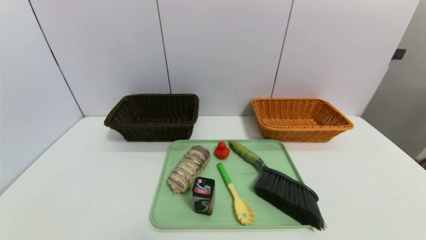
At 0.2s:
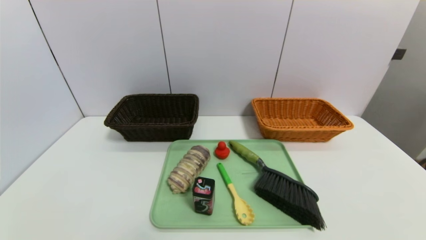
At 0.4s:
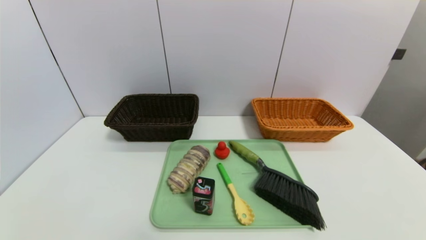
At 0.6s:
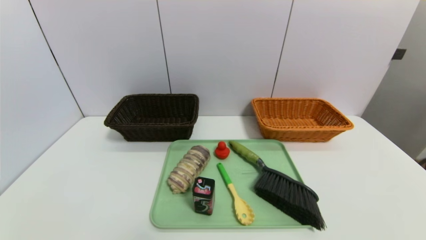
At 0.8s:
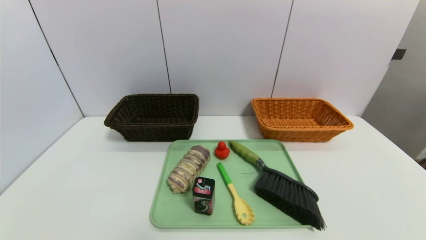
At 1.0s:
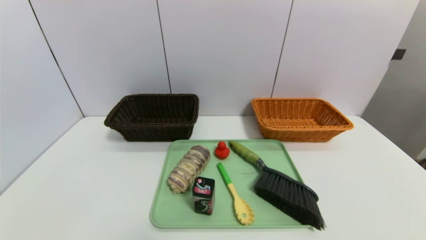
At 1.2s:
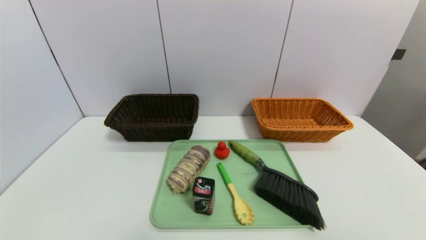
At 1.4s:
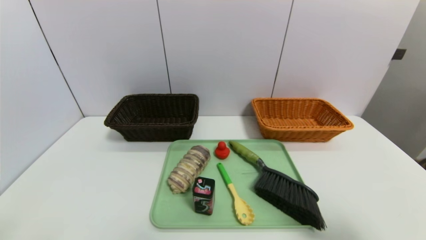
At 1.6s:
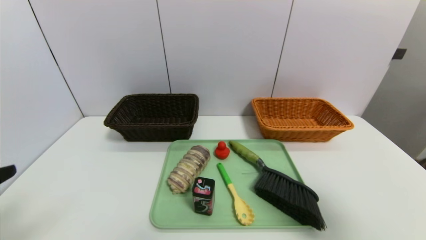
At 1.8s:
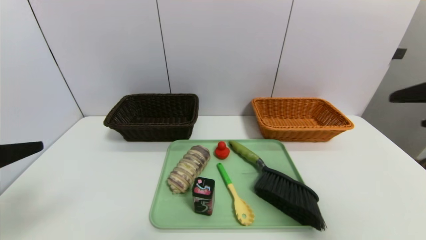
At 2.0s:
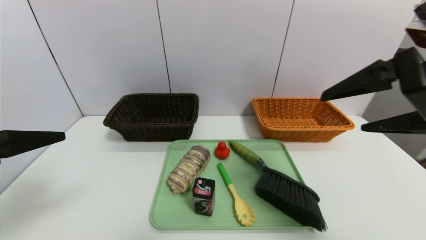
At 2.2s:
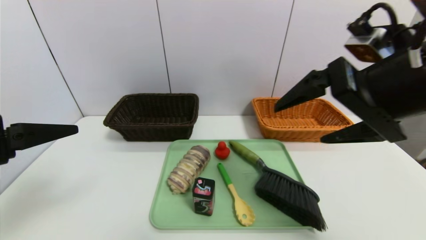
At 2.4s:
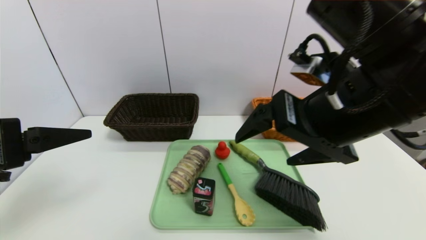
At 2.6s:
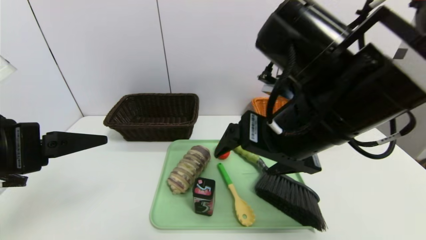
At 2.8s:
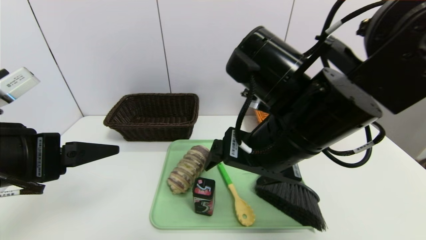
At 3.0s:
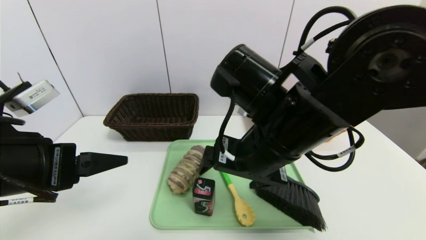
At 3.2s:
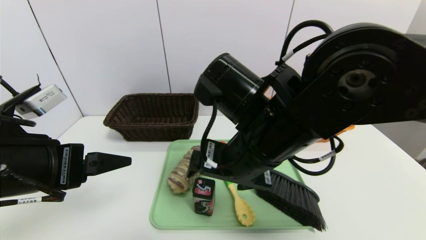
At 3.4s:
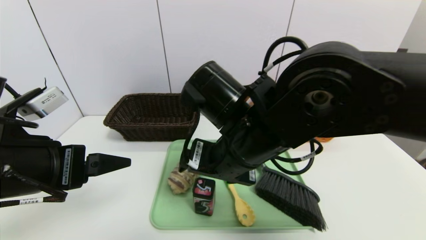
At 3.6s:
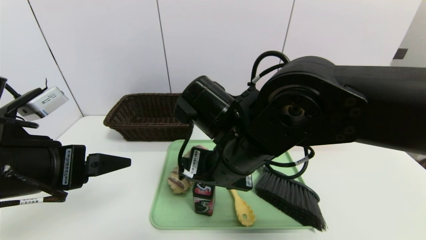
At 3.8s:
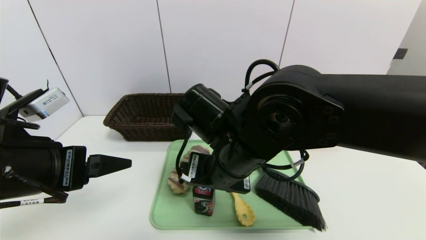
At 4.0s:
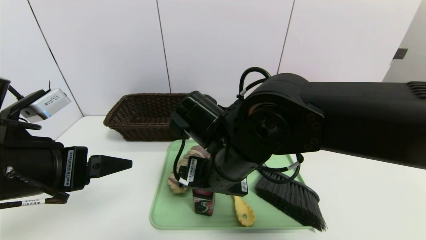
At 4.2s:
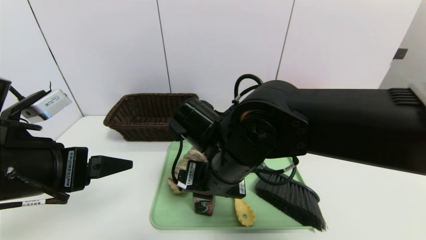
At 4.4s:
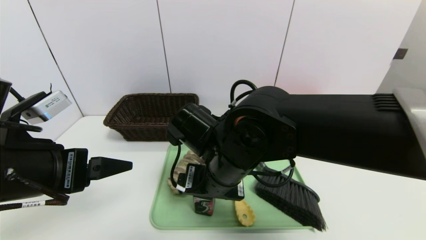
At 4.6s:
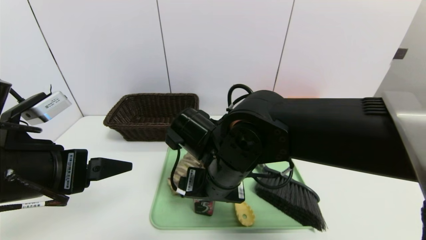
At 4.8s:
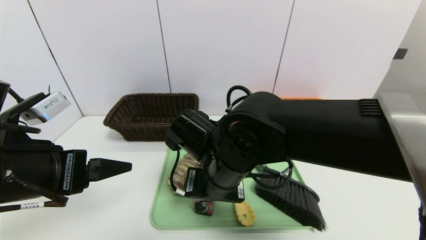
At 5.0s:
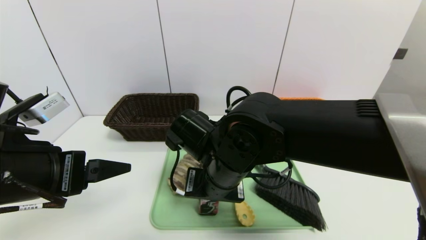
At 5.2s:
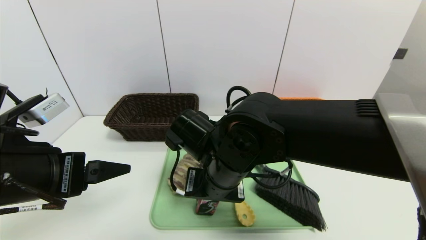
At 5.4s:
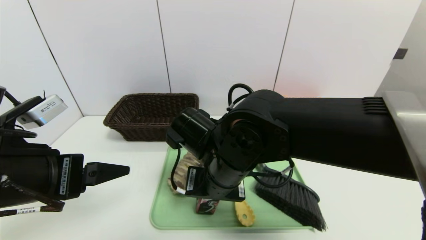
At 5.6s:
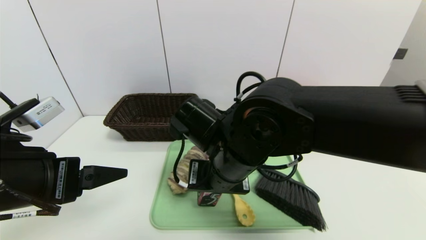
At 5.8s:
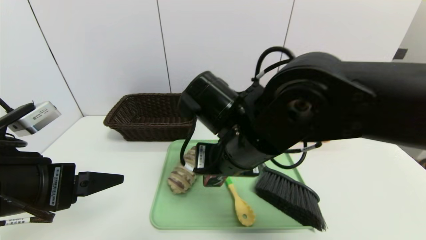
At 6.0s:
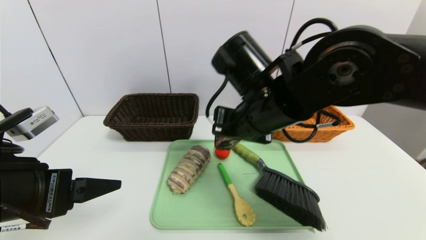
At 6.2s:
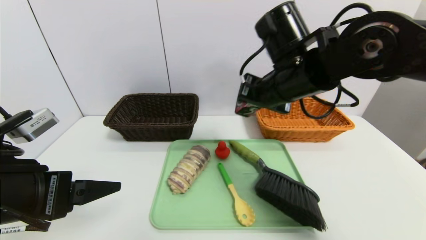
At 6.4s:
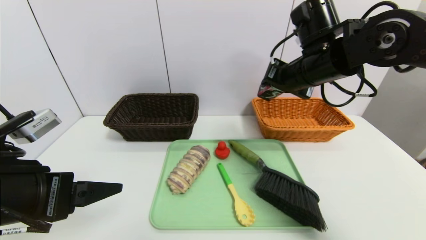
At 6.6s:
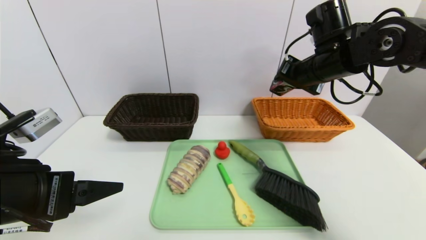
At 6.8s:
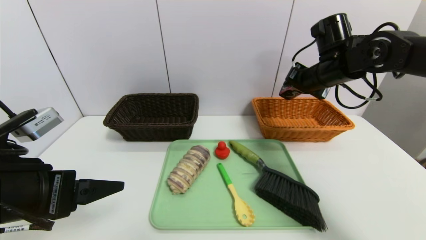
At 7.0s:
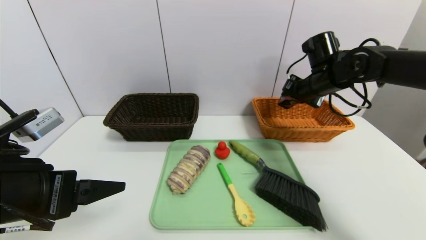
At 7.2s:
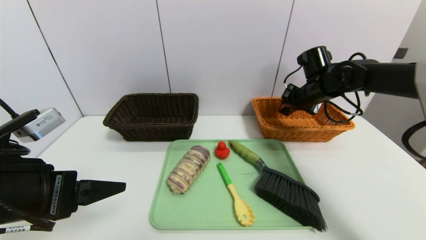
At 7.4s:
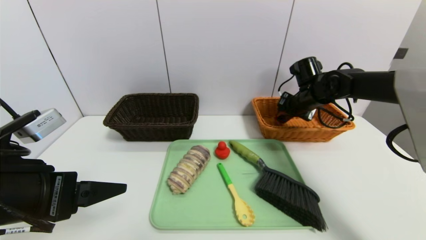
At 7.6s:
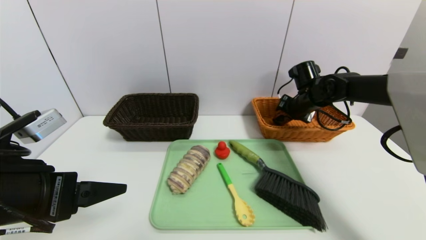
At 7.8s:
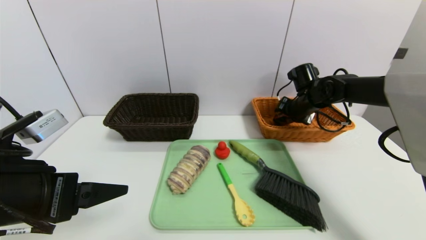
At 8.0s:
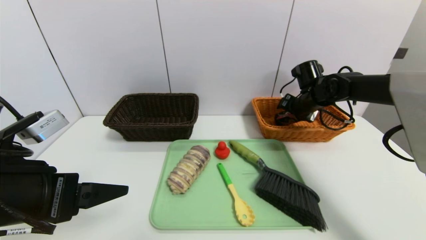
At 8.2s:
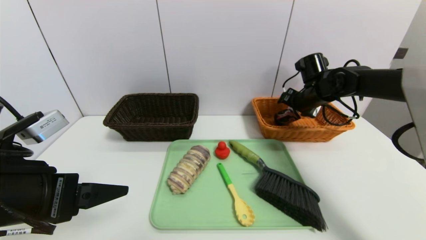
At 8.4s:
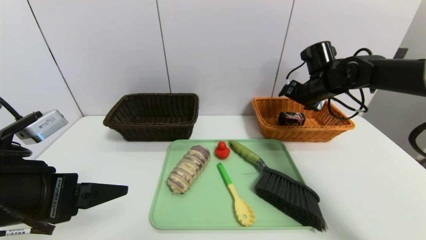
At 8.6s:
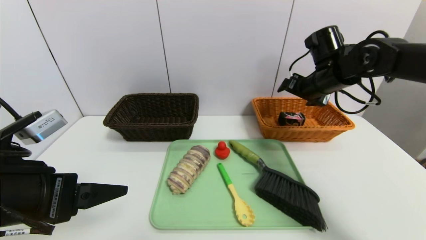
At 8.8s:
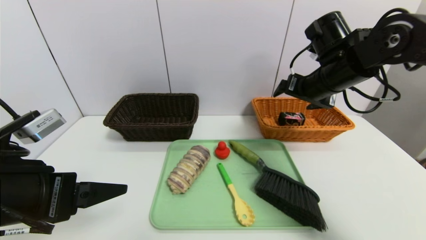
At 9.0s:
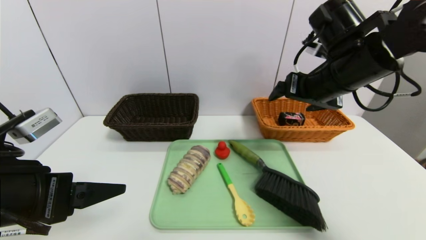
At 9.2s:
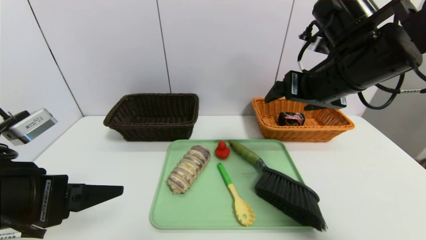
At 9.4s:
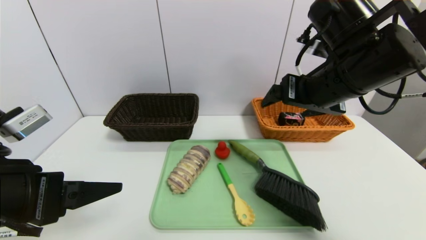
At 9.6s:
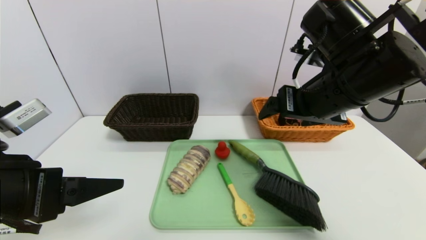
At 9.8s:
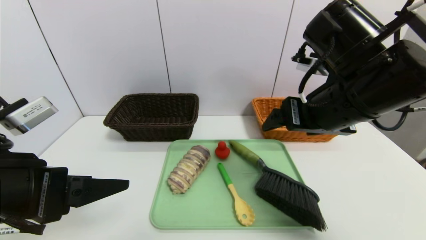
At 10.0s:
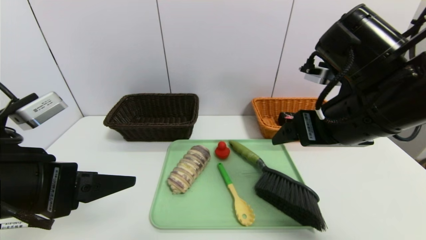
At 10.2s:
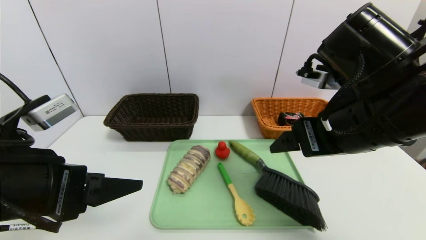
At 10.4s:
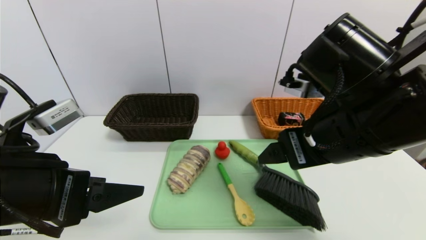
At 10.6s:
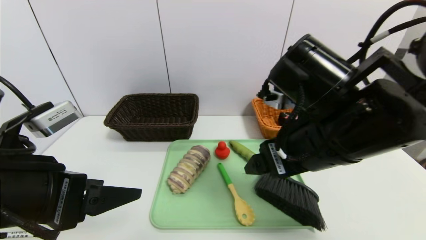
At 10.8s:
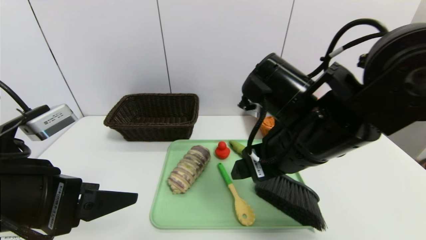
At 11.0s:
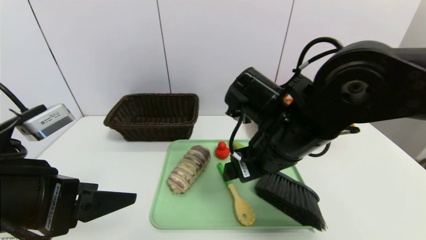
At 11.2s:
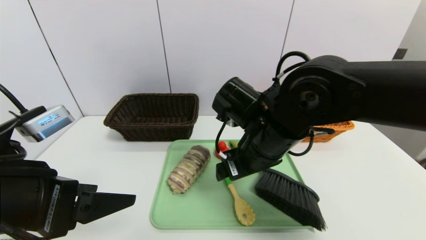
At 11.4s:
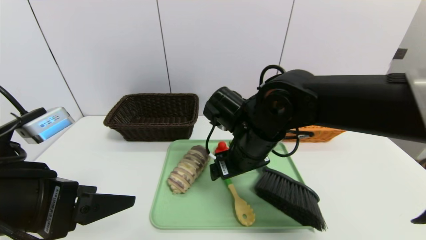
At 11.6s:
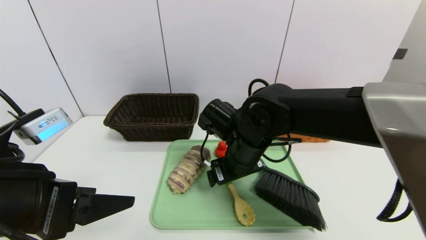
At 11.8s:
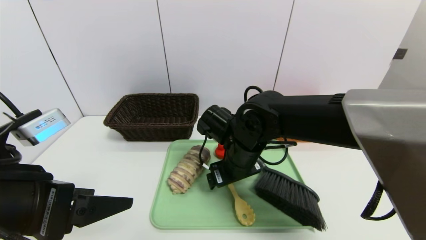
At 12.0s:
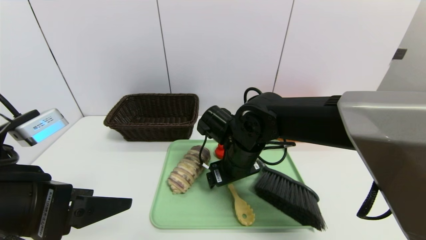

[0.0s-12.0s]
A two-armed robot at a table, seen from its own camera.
Task of the whole recording: place the food in the right basket with the right gripper, and place the non food items in the left basket with the left gripper.
Step, 0.0s to 8.4s: Grasp the square chewing gum and put it in the right basket.
0.0s to 1.6s: Both grippers travel together upward, approximately 25 cm.
1.6s to 3.0s: The right gripper travels to the left and forward by roughly 30 cm. The left gripper travels forward and to the right by approximately 10 cm.
3.0s to 4.4s: The right gripper travels downward and to the left by some 10 cm.
4.4s to 6.0s: The right gripper travels upward and to the right by about 10 cm, and closes.
6.0s to 7.6s: The right gripper goes approximately 30 cm forward, to the right and downward.
7.6s to 9.0s: The right gripper moves backward and upward, some 20 cm.
9.0s to 10.4s: The right gripper shifts about 10 cm backward.
10.4s to 12.0s: The right gripper shifts approximately 20 cm downward, to the left and forward.

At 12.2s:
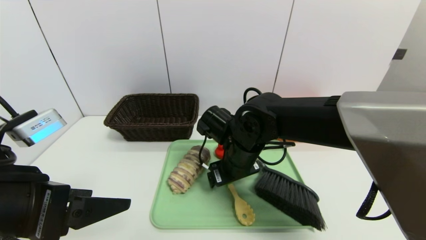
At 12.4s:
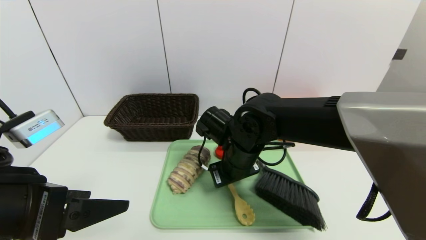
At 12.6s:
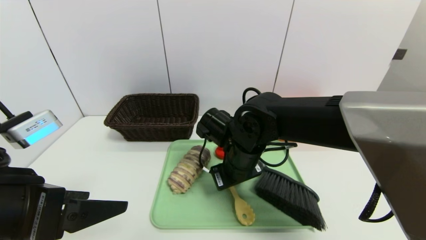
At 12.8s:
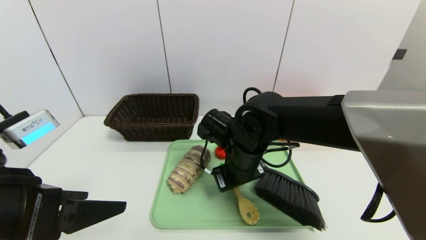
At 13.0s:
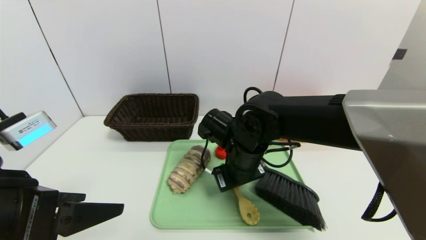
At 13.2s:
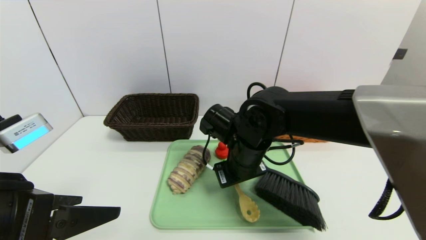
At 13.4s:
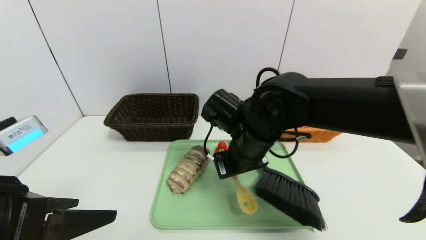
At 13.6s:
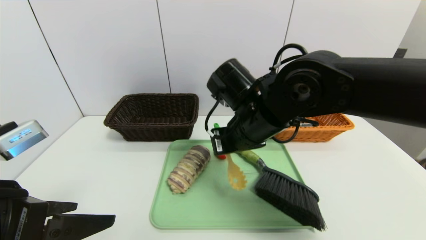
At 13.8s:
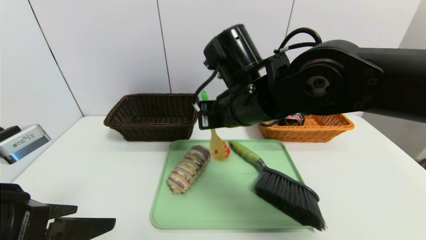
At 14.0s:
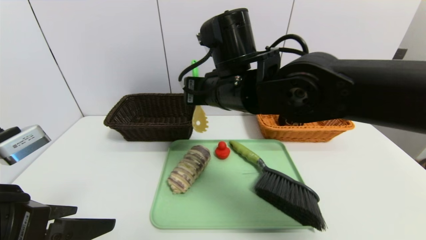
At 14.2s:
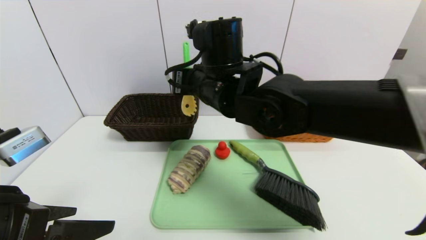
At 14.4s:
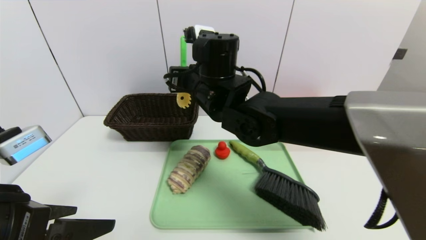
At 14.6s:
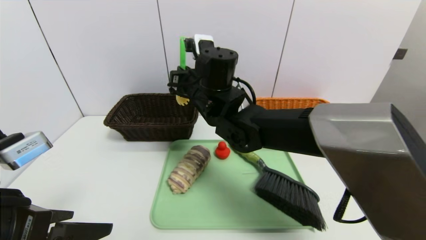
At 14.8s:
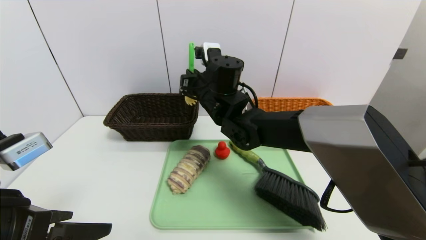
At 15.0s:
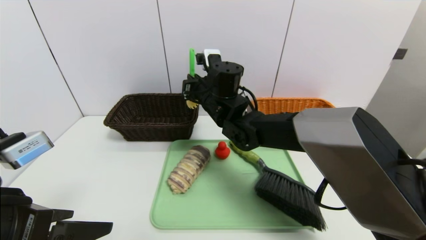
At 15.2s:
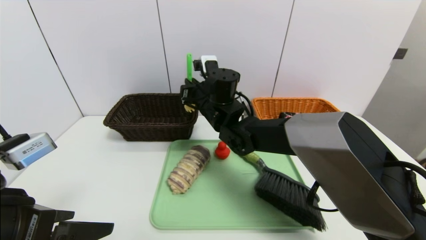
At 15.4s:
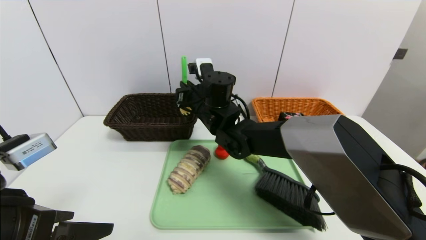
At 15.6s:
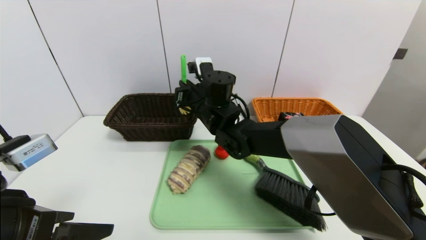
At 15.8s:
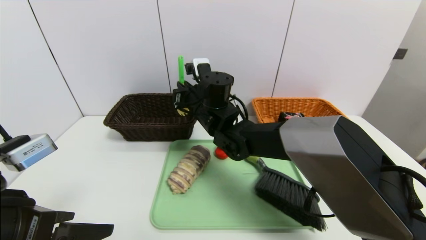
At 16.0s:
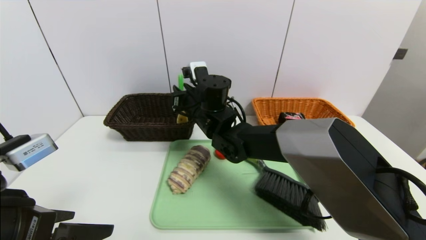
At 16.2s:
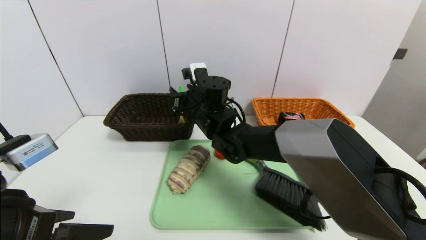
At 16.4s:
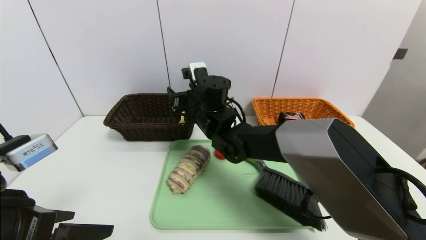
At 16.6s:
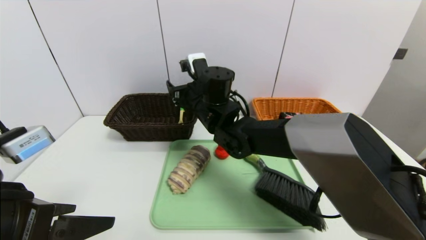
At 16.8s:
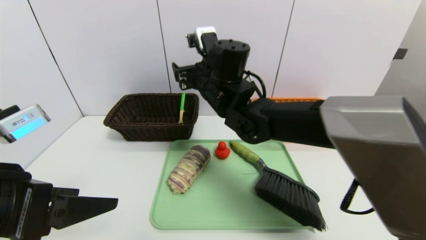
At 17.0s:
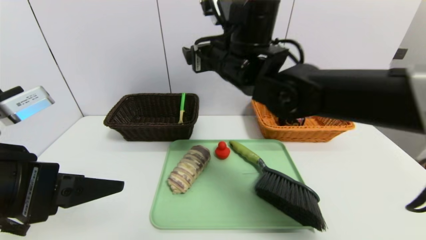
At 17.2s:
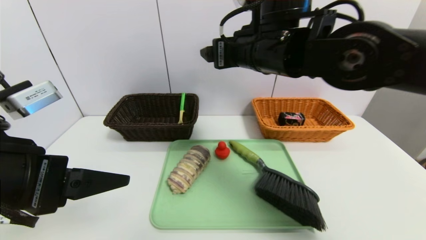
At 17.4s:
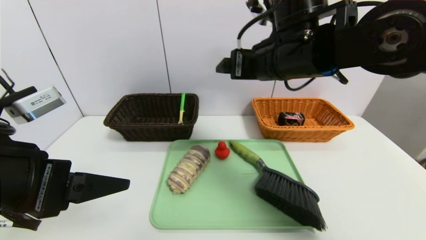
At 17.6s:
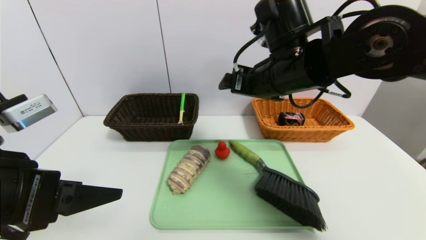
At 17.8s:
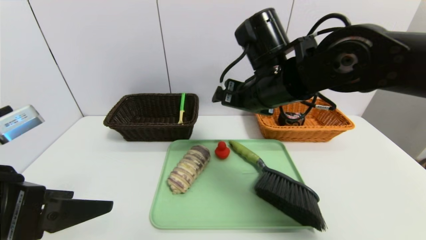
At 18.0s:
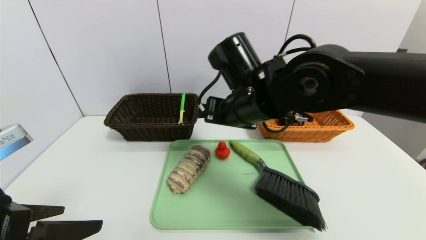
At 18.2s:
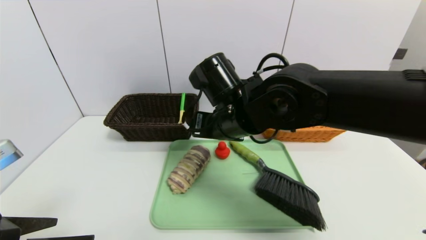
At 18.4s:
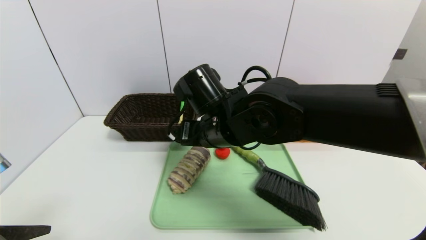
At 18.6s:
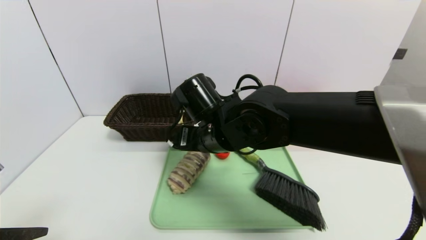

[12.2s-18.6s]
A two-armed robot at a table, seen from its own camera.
Task of the whole recording: place the food in the right basket with the right gripper, and place the non food items in the left basket with the left gripper.
Step, 12.2s to 17.2s: Grasp the back scratcher and put it in the left basket.
12.2s to 13.8s: The right gripper shifts roughly 10 cm upward, and closes up.
13.8s to 15.4s: The right gripper heads forward, downward and to the left, covering some 15 cm.
15.4s to 17.0s: The right gripper heads upward, backward and to the right, covering approximately 15 cm, and opens.
17.0s to 18.6s: The left gripper moves backward, about 5 cm. Meanwhile the right gripper goes about 10 cm downward and backward.
